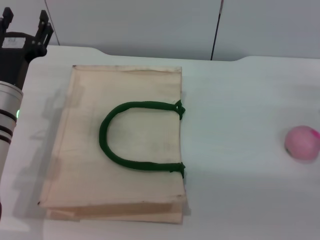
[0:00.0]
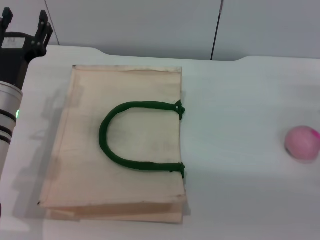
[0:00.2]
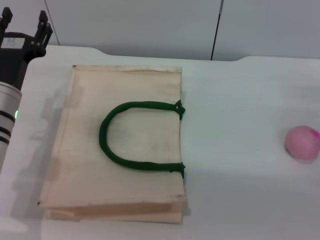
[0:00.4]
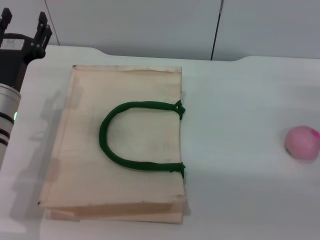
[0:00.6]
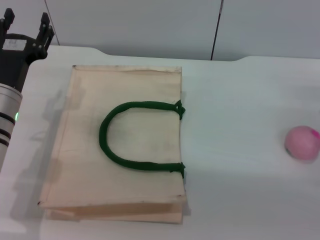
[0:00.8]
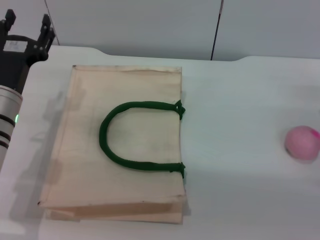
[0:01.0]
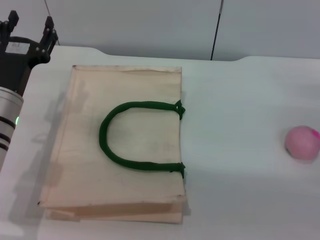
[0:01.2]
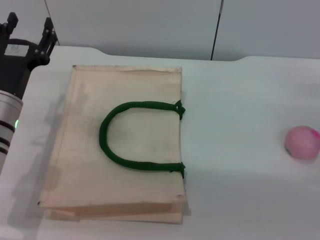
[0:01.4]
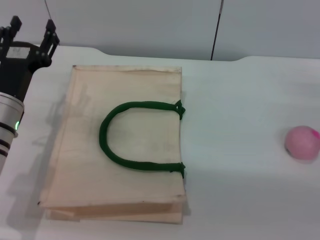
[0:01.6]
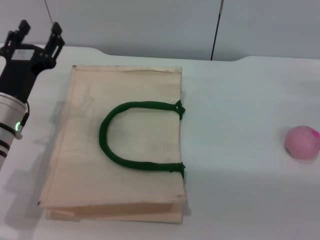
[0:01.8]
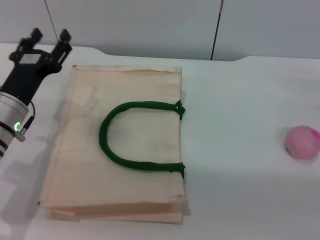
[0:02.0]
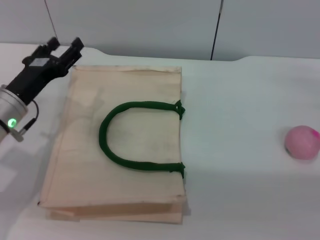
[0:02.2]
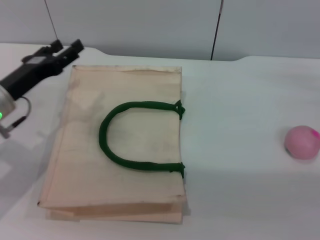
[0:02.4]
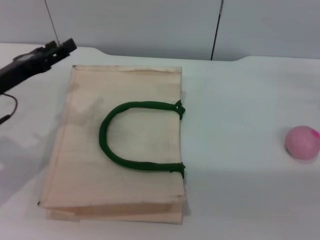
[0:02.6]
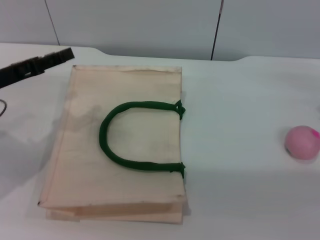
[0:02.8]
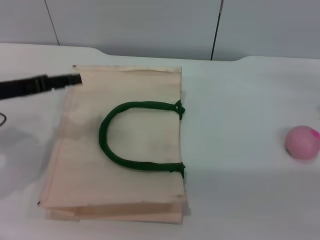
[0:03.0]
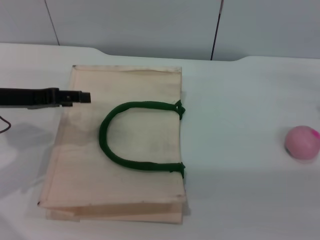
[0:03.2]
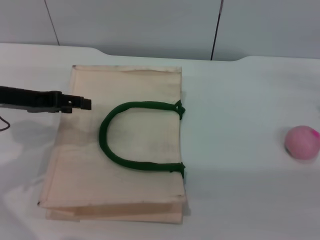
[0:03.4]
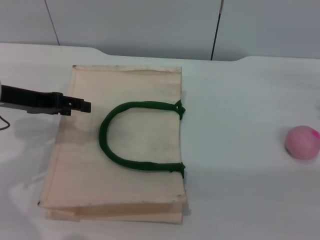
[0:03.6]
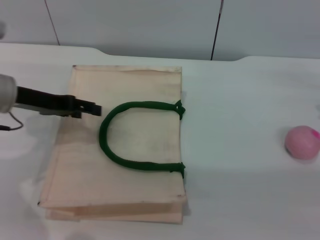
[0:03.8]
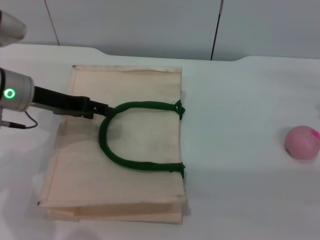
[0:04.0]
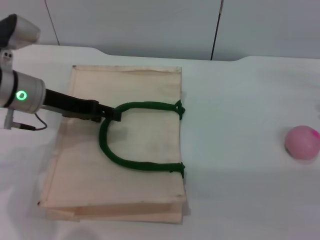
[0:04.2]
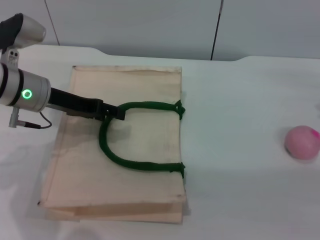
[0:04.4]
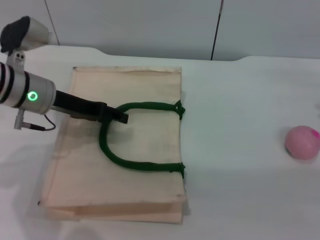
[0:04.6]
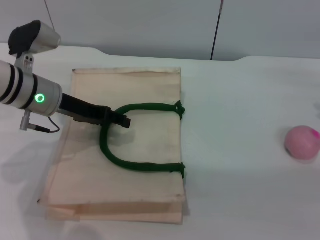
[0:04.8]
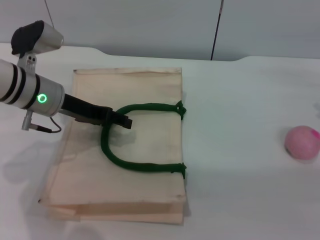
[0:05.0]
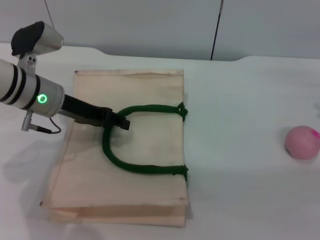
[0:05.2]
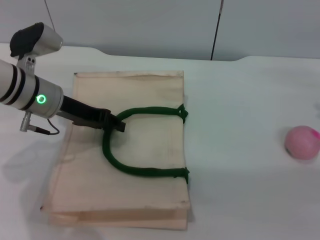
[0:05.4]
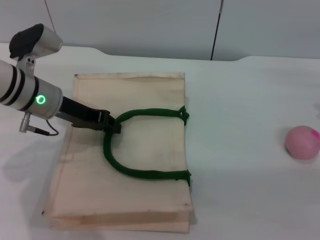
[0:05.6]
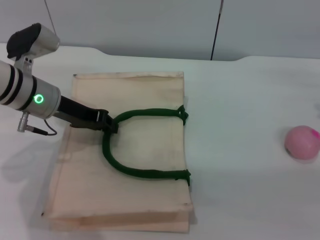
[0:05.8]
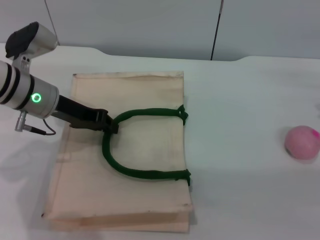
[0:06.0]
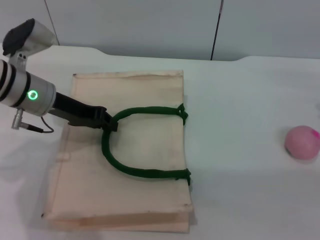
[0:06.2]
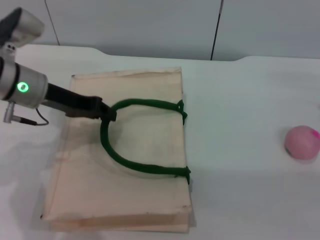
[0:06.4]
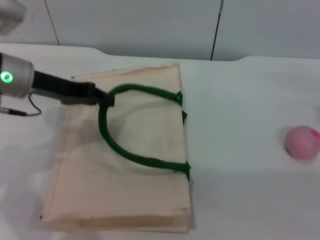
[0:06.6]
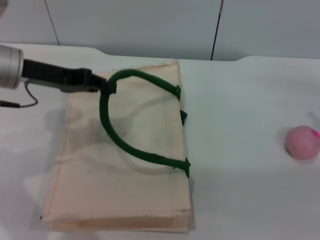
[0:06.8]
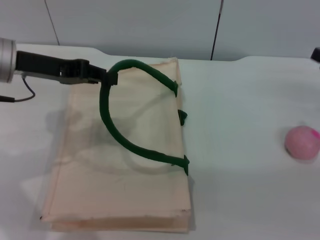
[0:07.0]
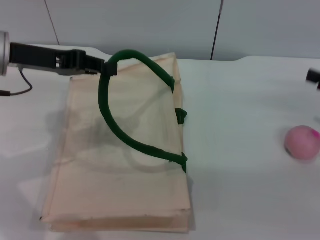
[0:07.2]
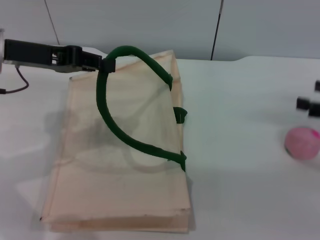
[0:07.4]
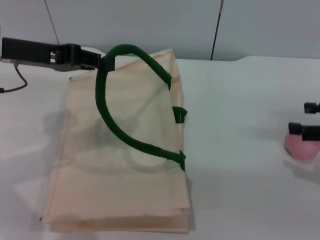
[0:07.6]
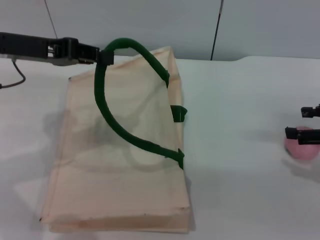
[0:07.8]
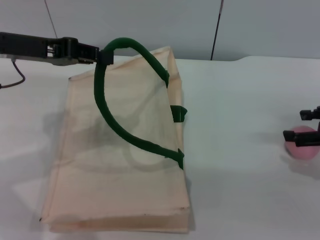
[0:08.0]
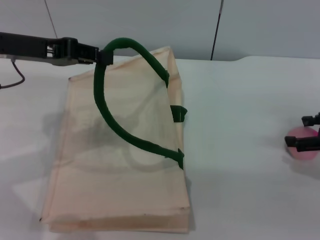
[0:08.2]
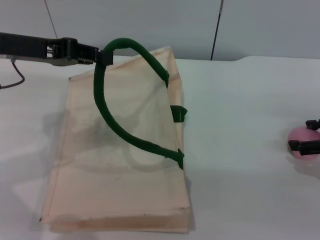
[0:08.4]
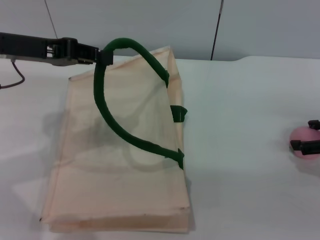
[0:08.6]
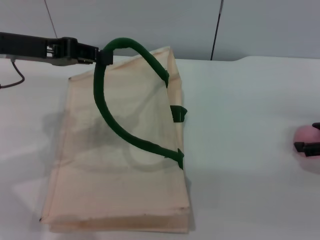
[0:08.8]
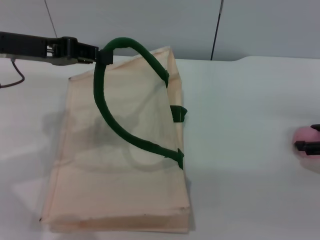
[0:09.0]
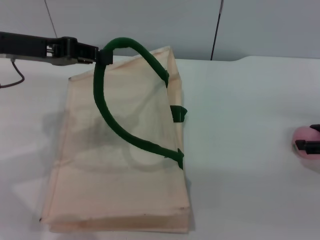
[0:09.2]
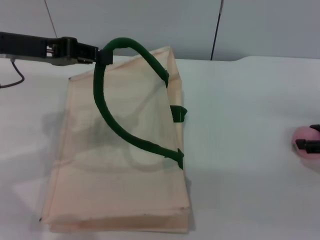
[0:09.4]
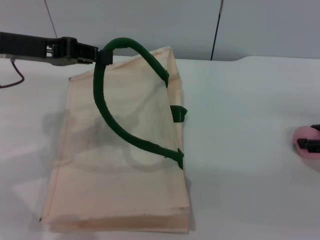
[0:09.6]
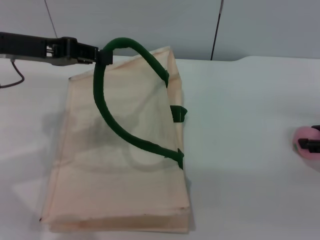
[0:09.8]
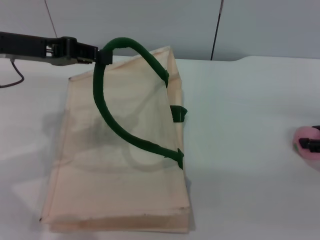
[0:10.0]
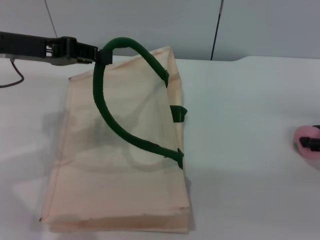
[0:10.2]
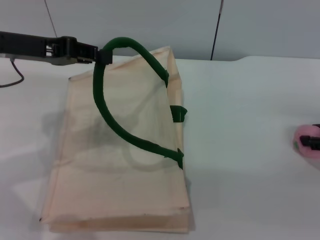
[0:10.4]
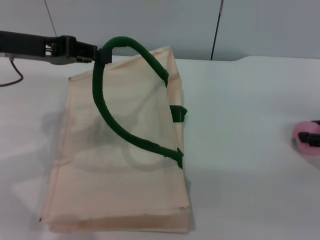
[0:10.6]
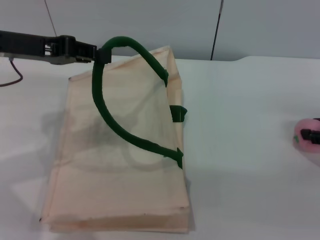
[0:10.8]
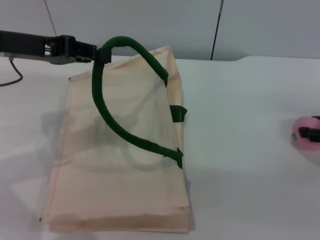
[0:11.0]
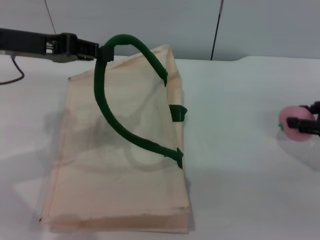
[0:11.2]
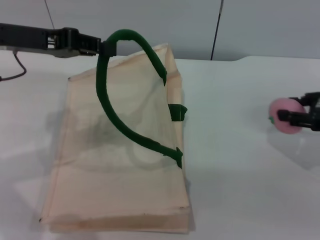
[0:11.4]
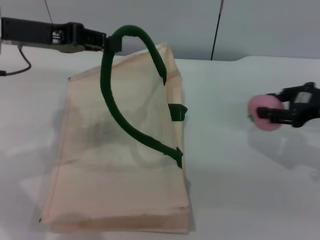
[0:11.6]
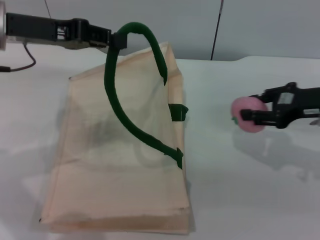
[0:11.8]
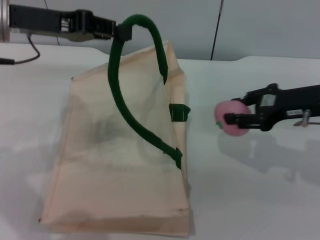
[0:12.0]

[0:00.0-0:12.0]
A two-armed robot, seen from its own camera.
Task of the whole recording: pick up the peach from the table and place it in the white handbag.
Step, 0:00.0 to 0:07.2: Lift the woven bag with the left gripper to open it.
Step, 0:07.4 to 0:11.0: Pick up the peach with the right gripper.
0:00.0 to 0:01.6: The grippers stay close to where they were, moving slightly.
0:01.6 to 0:03.0: The left gripper is displaced upward and to the left by about 10 cm.
0:03.0 to 0:04.4: The left gripper moves to the right and forward, approximately 10 cm.
0:04.4 to 0:06.0: The left gripper closes up.
0:06.0 to 0:07.6: The left gripper travels upward by roughly 10 cm.
0:10.4 to 0:12.0: The right gripper moves to the left, approximately 10 cm.

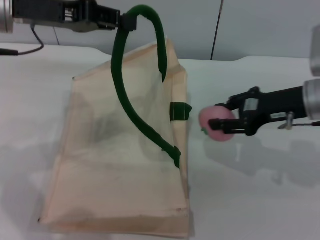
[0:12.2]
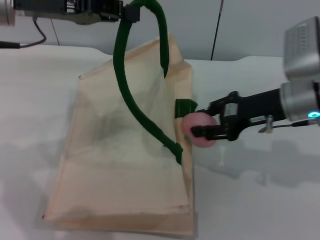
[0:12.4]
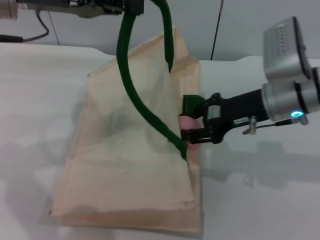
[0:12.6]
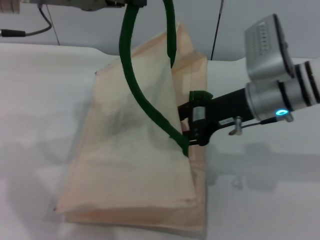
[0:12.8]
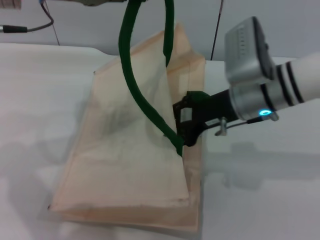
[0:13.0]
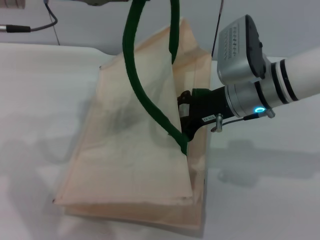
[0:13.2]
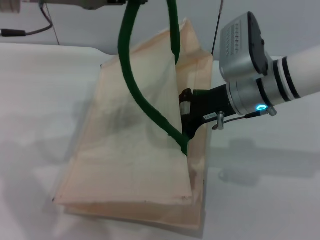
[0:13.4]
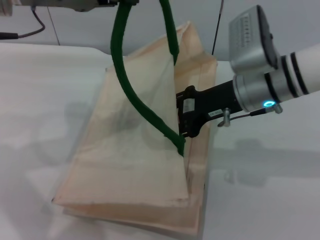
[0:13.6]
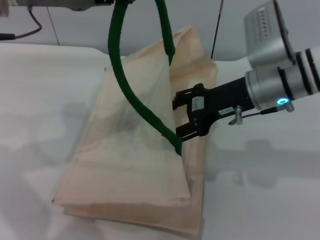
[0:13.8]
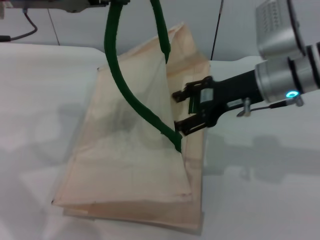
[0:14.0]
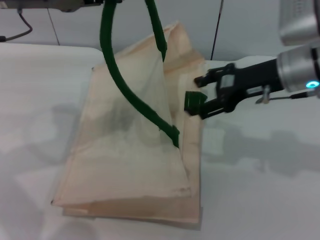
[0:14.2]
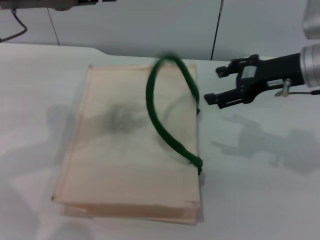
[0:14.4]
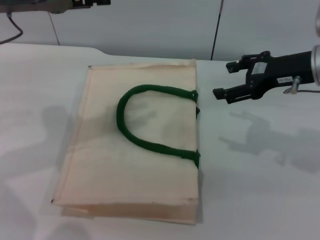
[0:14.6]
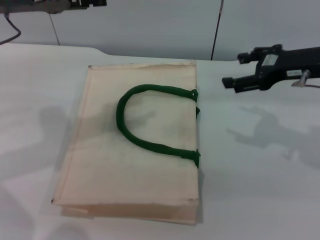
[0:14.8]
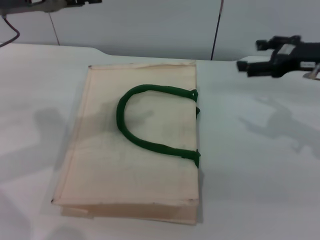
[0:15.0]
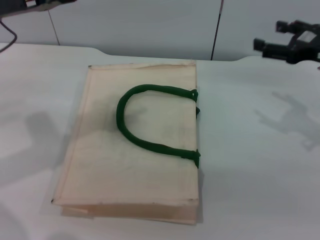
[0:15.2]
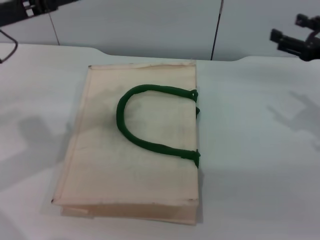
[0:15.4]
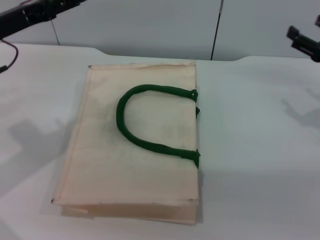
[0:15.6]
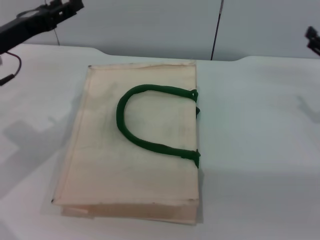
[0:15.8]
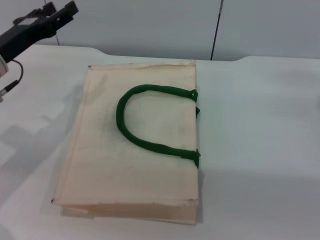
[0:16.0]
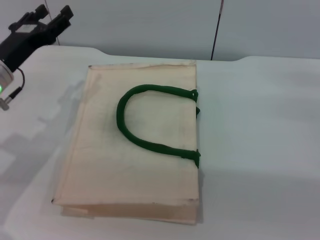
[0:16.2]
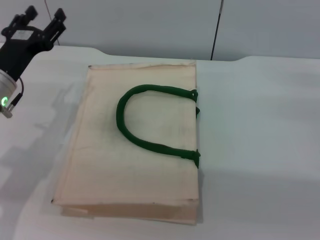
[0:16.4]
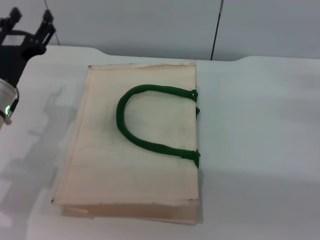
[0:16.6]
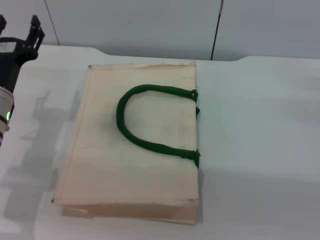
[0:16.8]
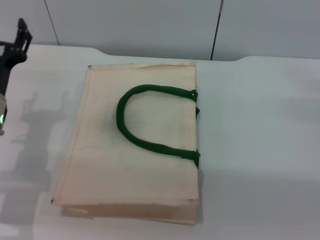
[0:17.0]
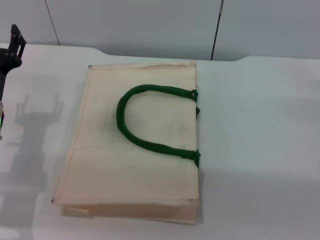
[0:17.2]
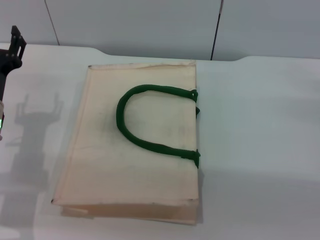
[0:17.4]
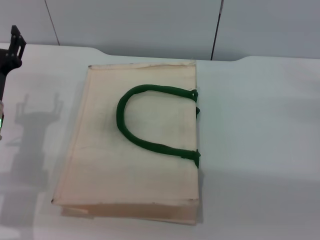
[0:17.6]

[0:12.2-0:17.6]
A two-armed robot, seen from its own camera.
Task of the whole recording: pick up the peach from the table and place it in the white handbag.
Step, 0:12.2 to 0:14.0: Place the peach into the woven bag with the right gripper.
Step, 0:14.2 to 0:14.6: Lower the woven bag with the left gripper to close it.
0:12.2 to 0:13.6: The right gripper moves to the left, roughly 10 cm.
0:13.6 to 0:15.0: The left gripper opens; the right gripper is displaced to the right by about 15 cm, and opens up.
0:15.0 to 0:16.2: The right gripper travels downward, to the right and backward by about 15 cm, while the left gripper shifts some 15 cm downward.
0:16.2 to 0:17.6: The left gripper shifts by about 5 cm.

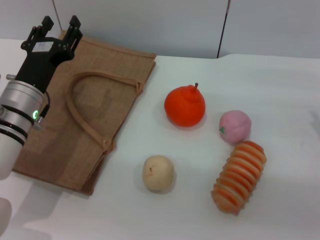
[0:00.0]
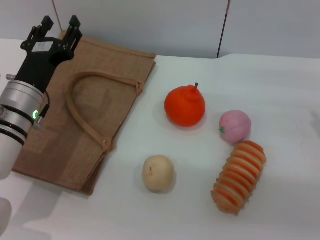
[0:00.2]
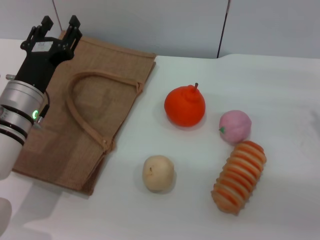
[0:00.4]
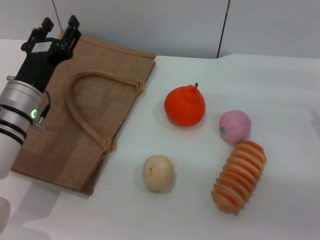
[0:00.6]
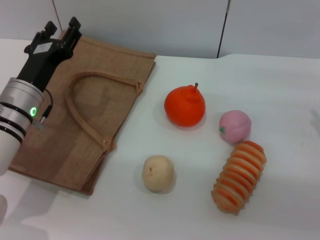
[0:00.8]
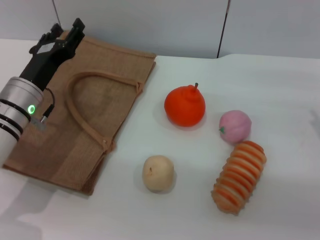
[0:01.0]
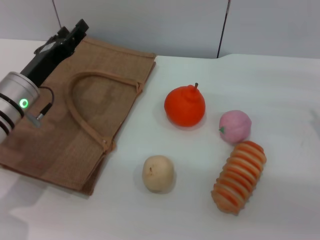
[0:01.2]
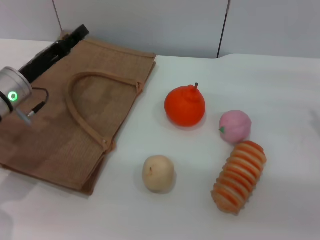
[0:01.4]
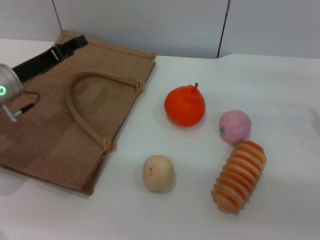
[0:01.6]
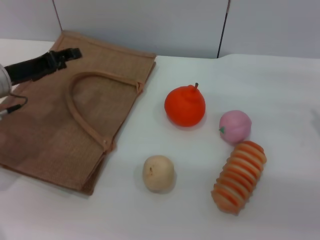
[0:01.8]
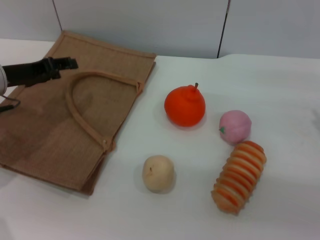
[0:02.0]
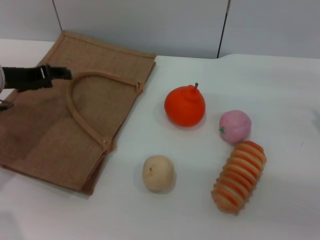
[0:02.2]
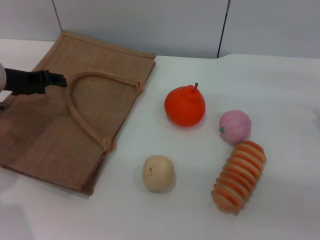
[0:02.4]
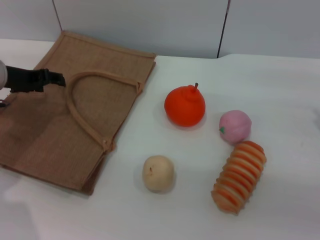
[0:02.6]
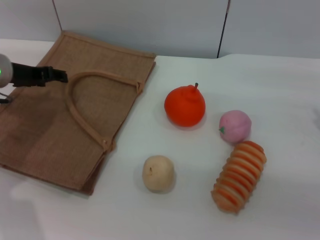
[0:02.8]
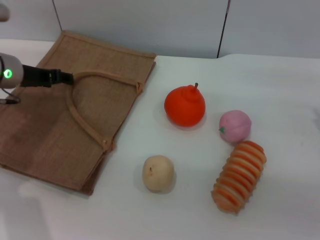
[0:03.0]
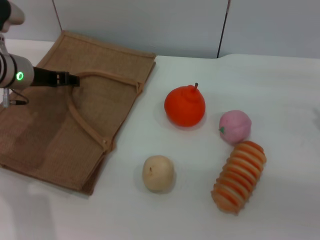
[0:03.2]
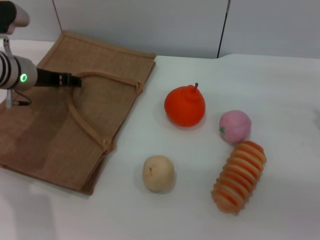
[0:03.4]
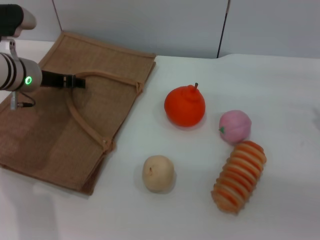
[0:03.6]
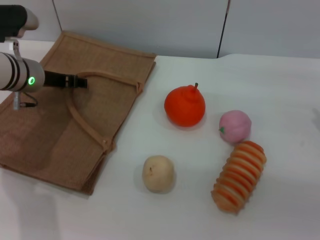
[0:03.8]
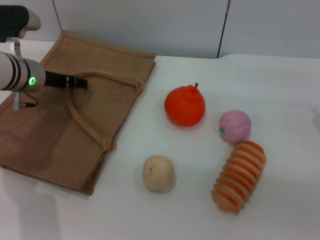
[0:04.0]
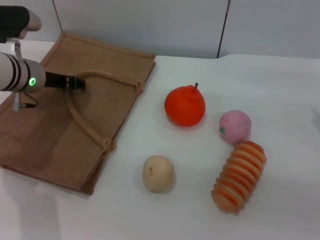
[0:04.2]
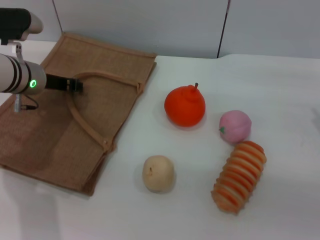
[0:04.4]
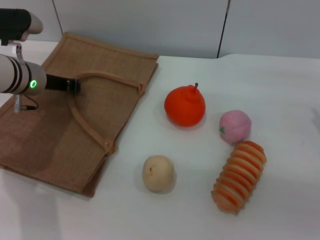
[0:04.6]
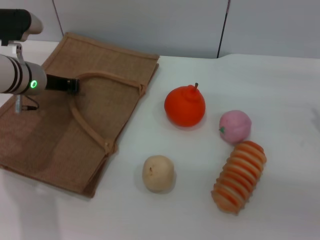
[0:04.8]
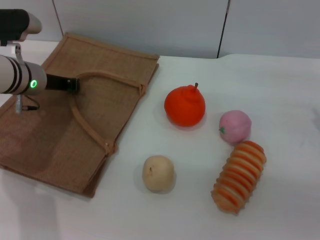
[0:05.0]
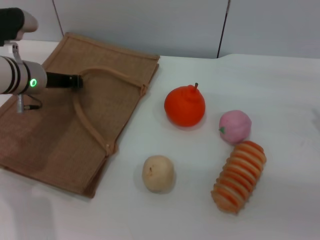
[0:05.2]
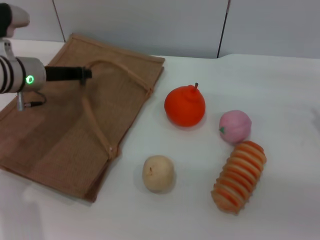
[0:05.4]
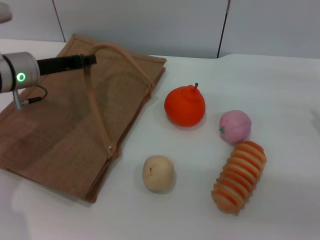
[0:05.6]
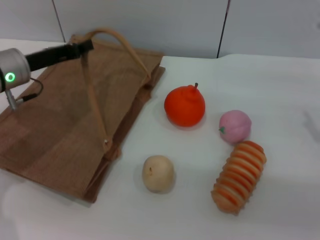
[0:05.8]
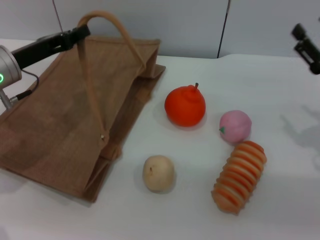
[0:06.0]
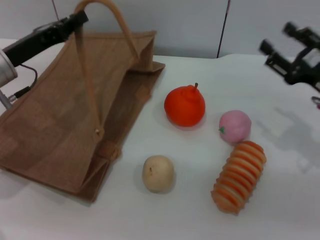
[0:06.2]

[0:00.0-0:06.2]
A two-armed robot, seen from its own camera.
Task of the whole recording: pick up the orange and peach from the table and place it in the brown handbag.
Step, 0:00.0 to 0:05.6: Lift the woven bag with the left gripper to open it.
0:00.0 to 0:01.6: The left gripper shifts about 5 cm to the left.
0:01.6 to 0:03.2: The left gripper is displaced forward by about 5 cm.
0:03.2 to 0:04.6: The left gripper closes its fingers.
0:04.6 to 0:06.2: The left gripper heads backward, covering some 5 cm.
